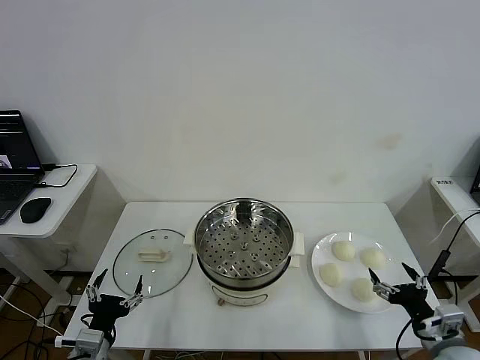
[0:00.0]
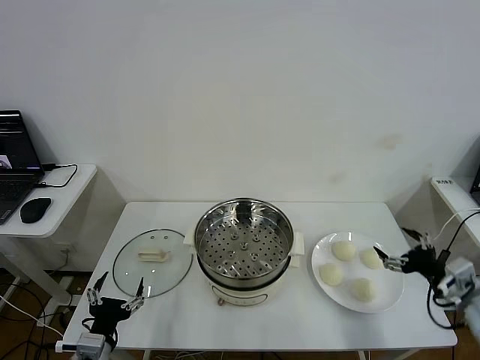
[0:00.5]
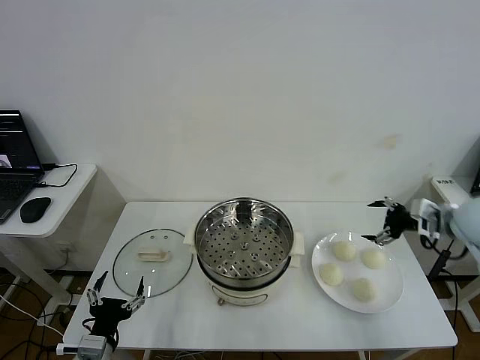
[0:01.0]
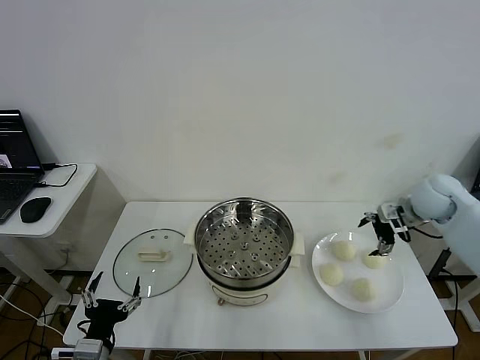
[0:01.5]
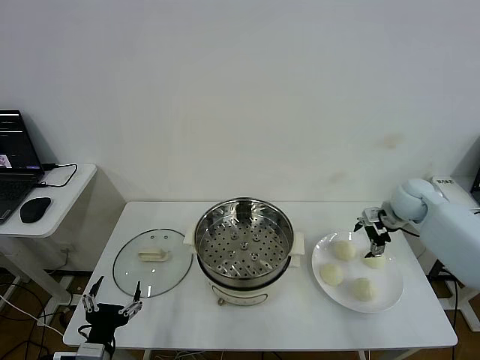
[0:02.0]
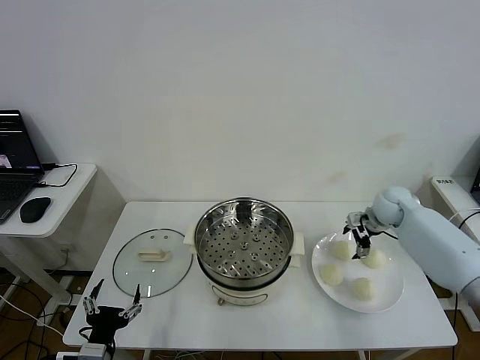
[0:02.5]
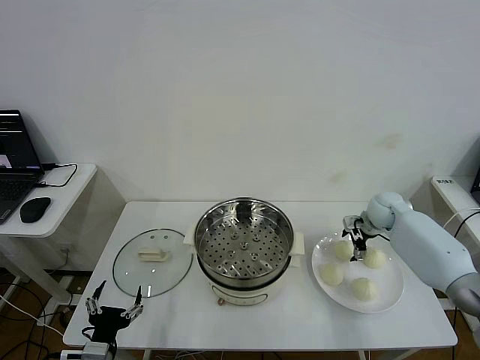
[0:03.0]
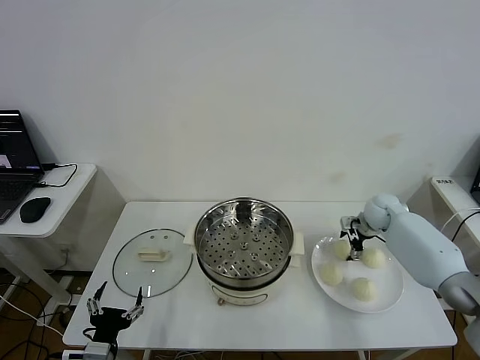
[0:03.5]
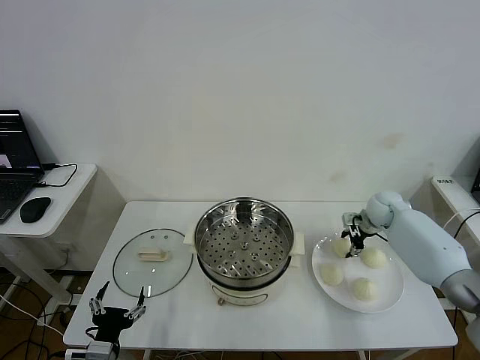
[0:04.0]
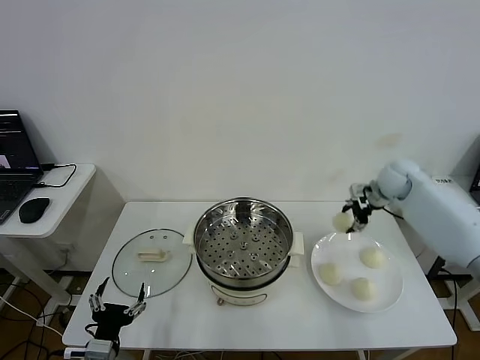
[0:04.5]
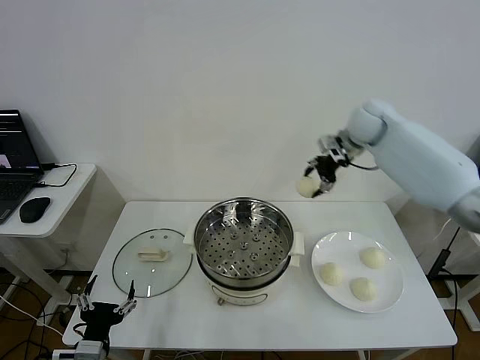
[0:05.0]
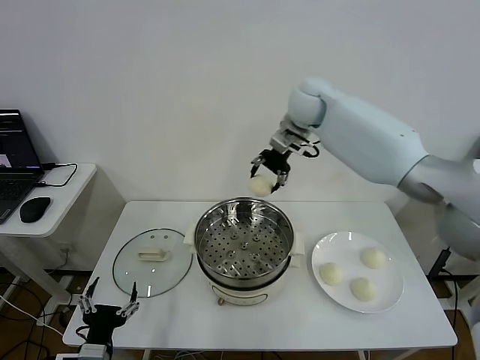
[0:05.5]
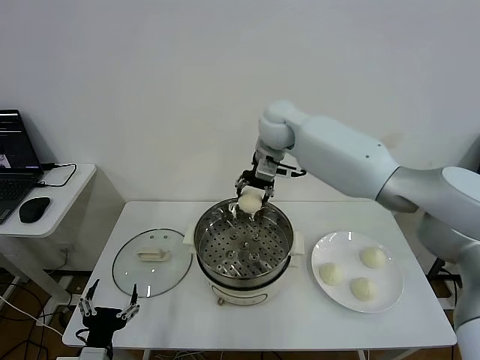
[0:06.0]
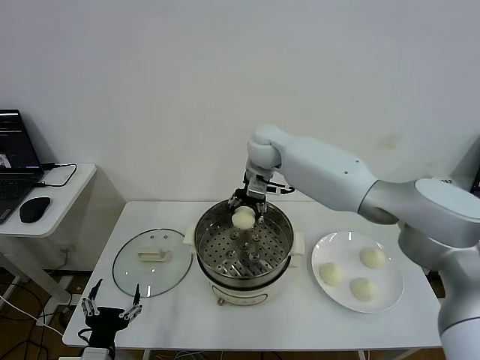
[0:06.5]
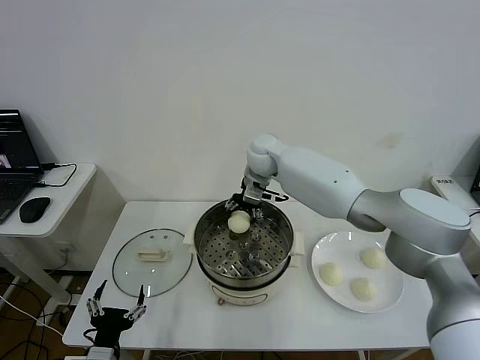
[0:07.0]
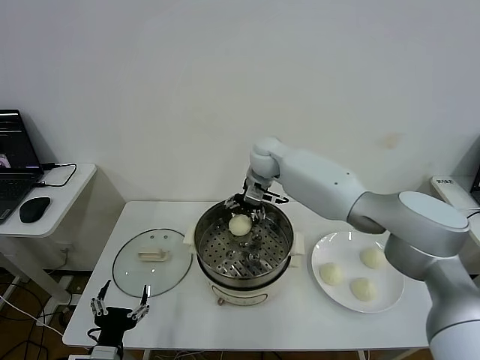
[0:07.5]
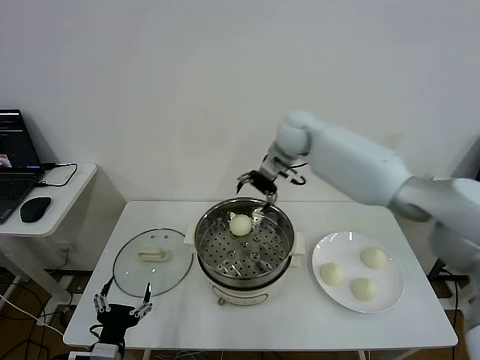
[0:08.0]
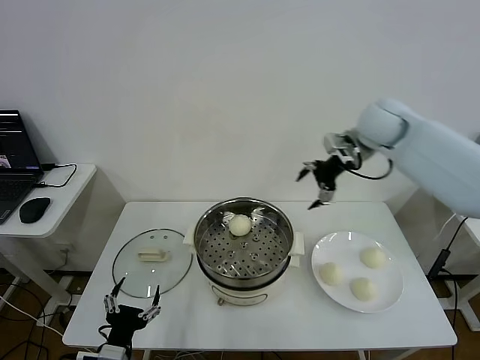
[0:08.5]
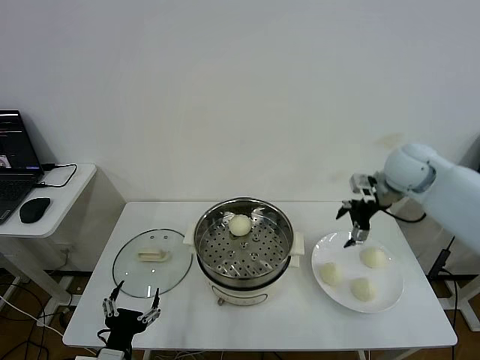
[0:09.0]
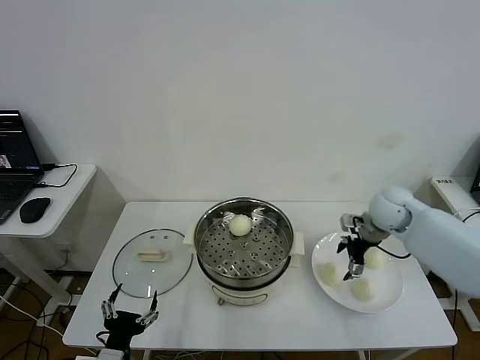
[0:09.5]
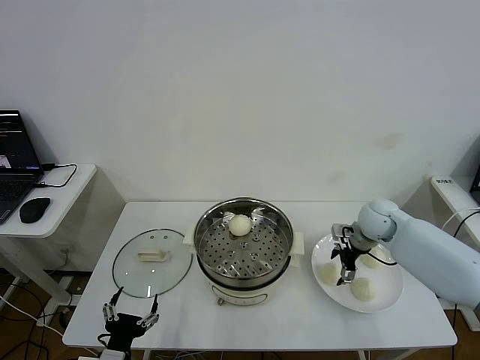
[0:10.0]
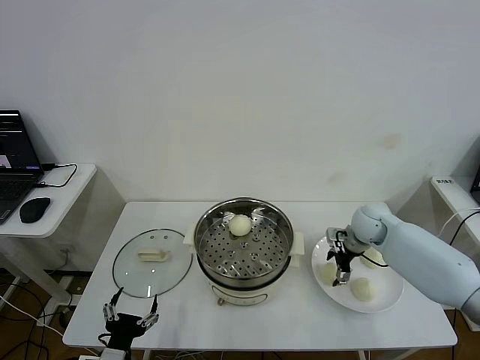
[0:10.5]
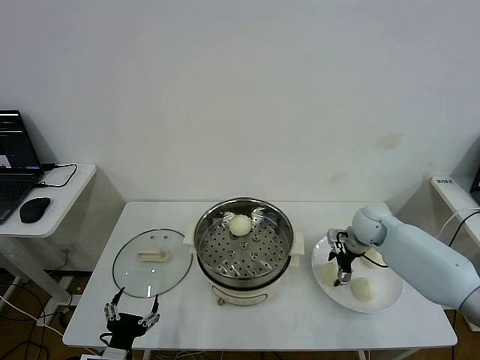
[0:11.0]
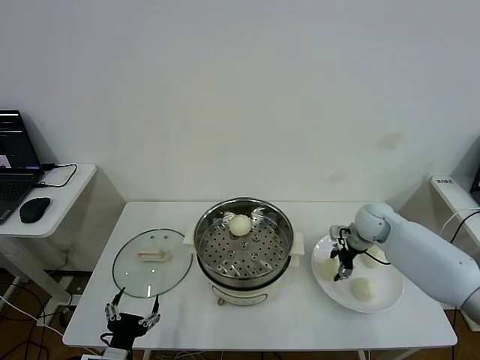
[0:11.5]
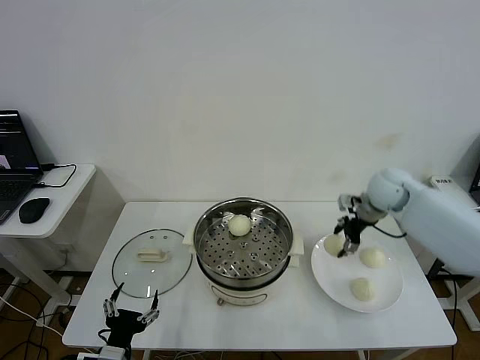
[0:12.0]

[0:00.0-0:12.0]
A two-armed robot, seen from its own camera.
Step, 0:00.0 to 0:03.5: Grasp the baozi in the plate with right gripper.
Step, 0:04.0 to 0:07.0: Place the baozi on the steamer with right gripper.
Step, 0:07.5 to 0:11.0: Grasp the baozi in the plate with right gripper.
0:02.0 to 0:04.0: The right gripper moves downward, some 5 cm, and closes up.
0:04.0 to 0:06.0: The right gripper is displaced to the left and upward by about 40 cm.
0:06.0 to 0:08.0: The right gripper is displaced to the right by roughly 10 cm, and opens.
0:08.0 to 0:10.0: The right gripper heads downward, to the right and backward, covering approximately 30 cm.
0:10.0 to 0:12.0: The right gripper is displaced upward by roughly 10 cm, and closes its fingers.

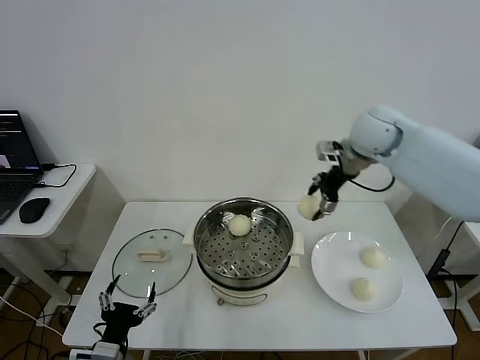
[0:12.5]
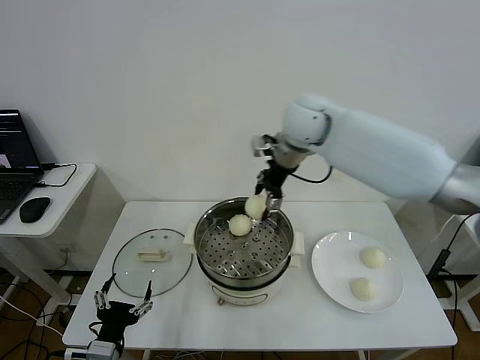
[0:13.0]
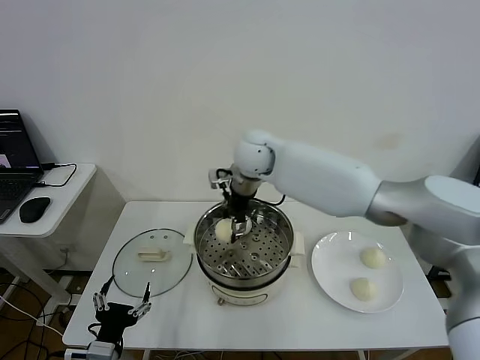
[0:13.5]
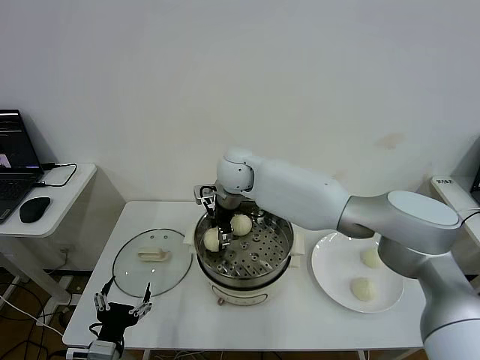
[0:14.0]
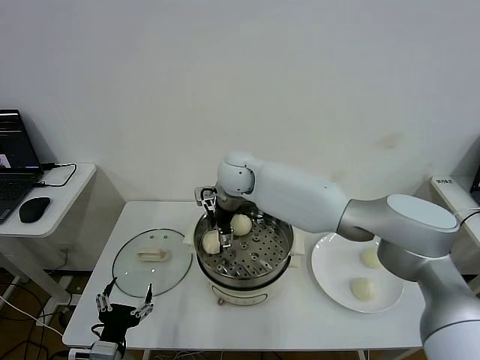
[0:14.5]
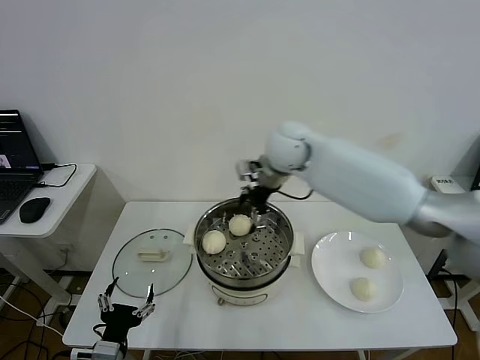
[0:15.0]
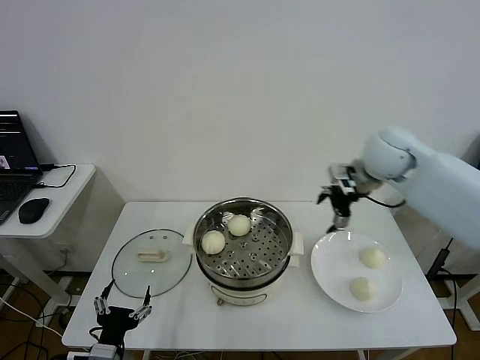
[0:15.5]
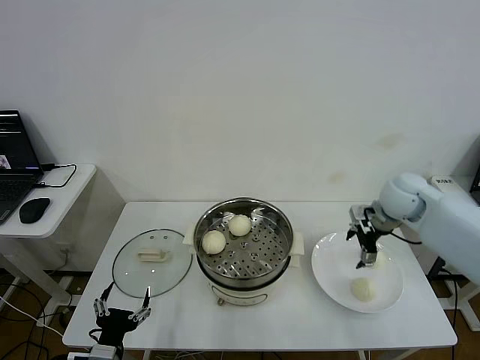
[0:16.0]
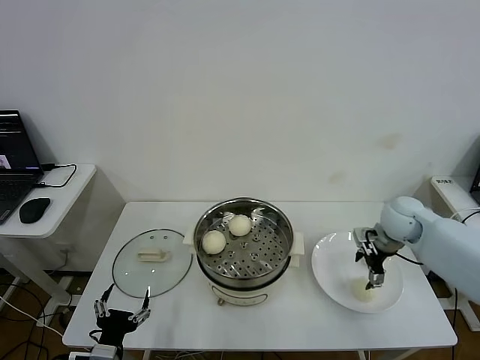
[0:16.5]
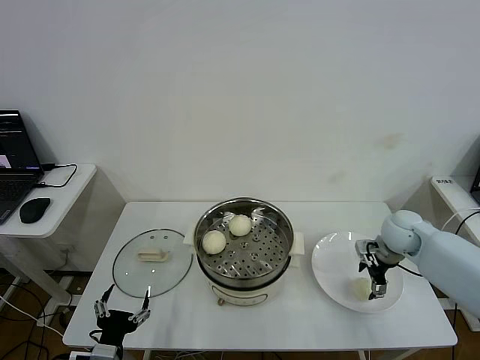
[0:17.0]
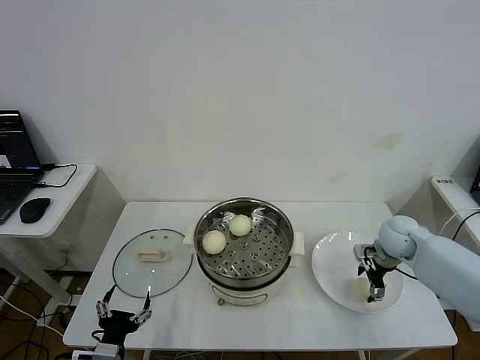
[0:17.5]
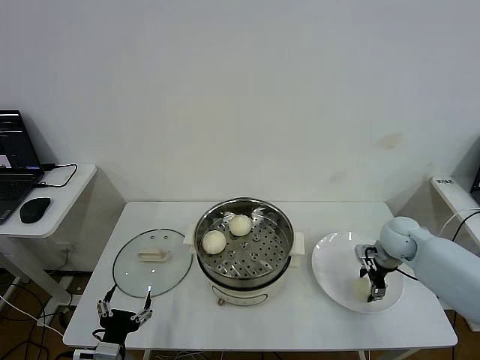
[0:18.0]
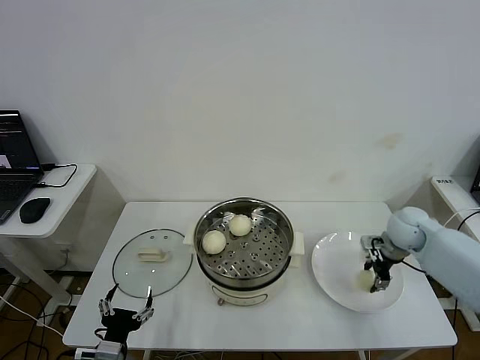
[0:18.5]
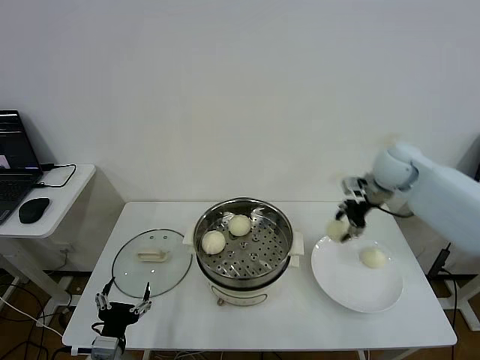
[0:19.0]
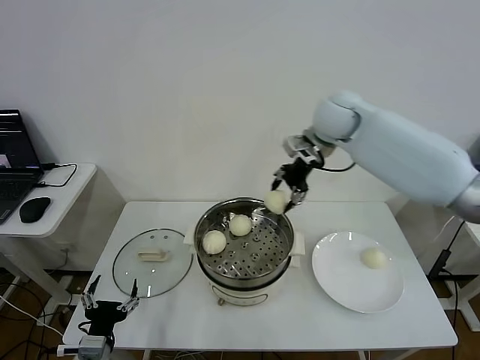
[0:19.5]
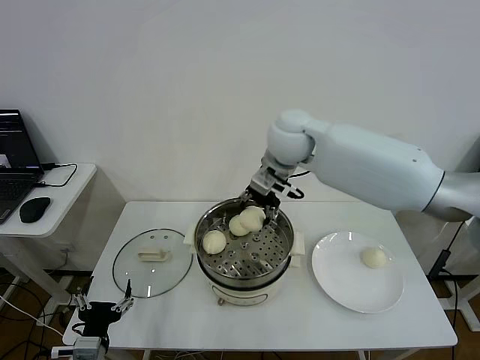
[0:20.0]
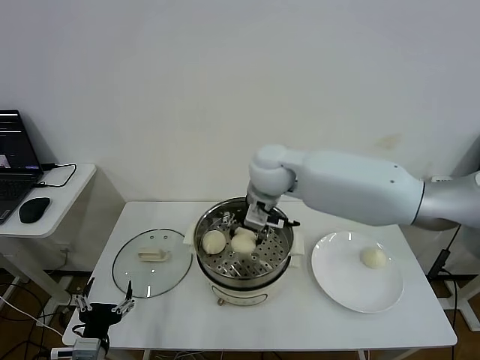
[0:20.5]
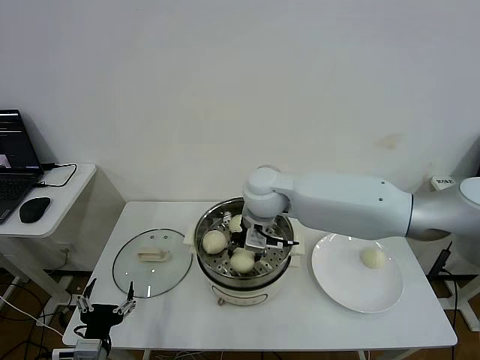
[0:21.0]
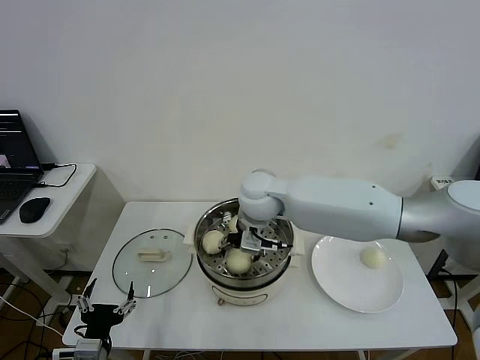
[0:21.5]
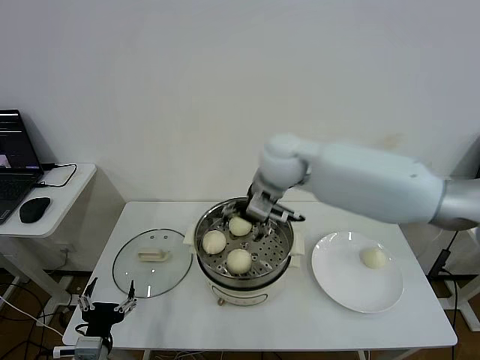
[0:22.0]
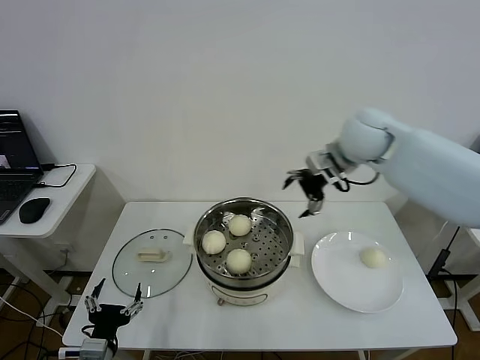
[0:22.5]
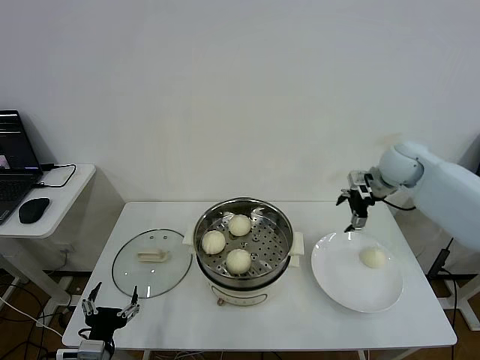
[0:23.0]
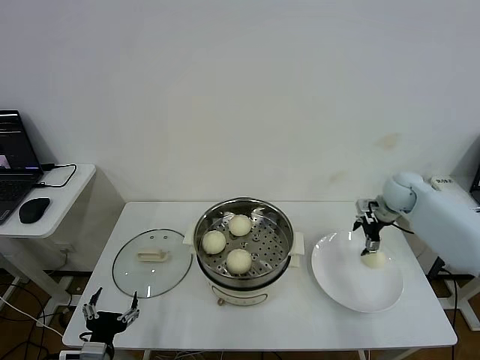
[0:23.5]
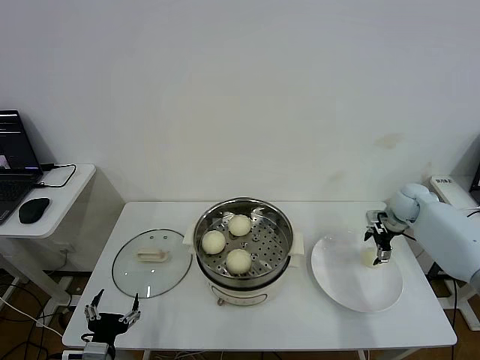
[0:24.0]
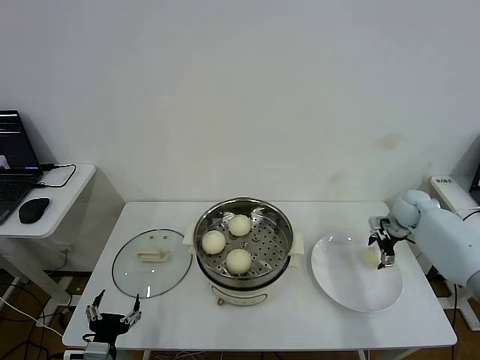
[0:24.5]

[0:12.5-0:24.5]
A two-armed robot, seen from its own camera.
Step, 0:12.5 to 0:14.0: Place the baozi on the steamer with right gripper.
Step, 0:14.5 to 0:18.0: Grasp the baozi in the plate with right gripper.
Step, 0:18.5 to 0:21.5: Place the baozi on the steamer with right gripper.
0:12.5 to 0:14.5: The right gripper heads to the left and downward, covering roughly 30 cm, and opens its fingers.
0:14.5 to 0:16.5: The right gripper travels to the right by about 40 cm.
0:16.5 to 0:18.5: The right gripper closes its fingers.
0:18.5 to 0:20.5: The right gripper heads to the left and upward, covering roughly 35 cm.
0:20.5 to 0:22.5: The right gripper goes roughly 20 cm to the right, and opens its fingers.
0:22.5 to 0:24.5: The right gripper travels downward and to the right by roughly 30 cm.

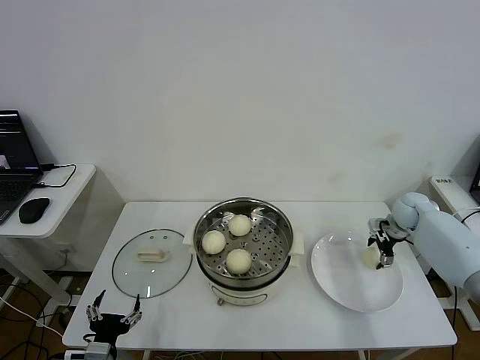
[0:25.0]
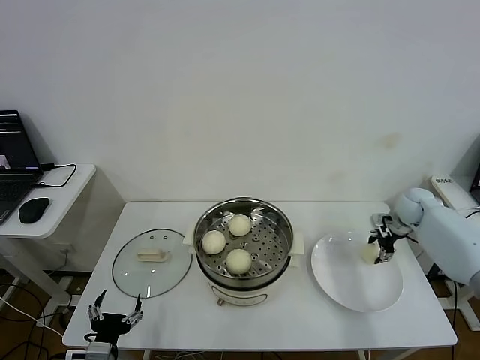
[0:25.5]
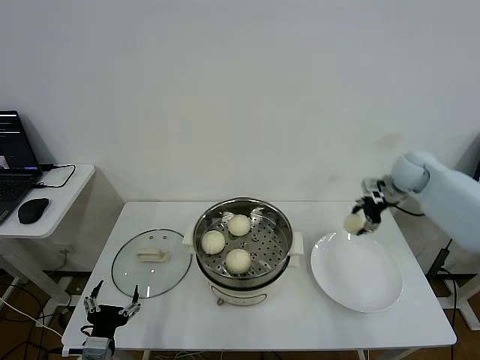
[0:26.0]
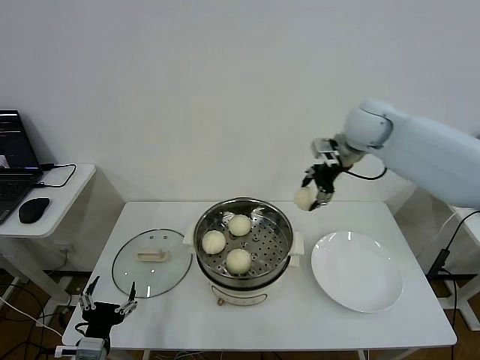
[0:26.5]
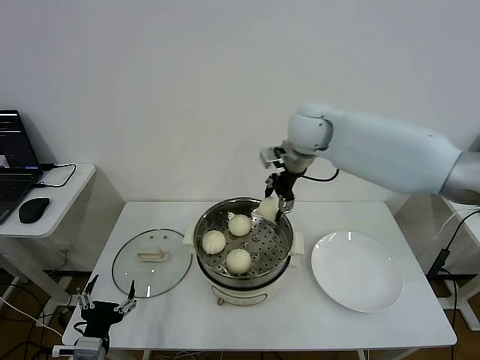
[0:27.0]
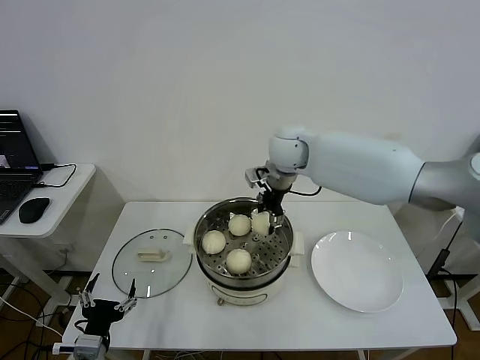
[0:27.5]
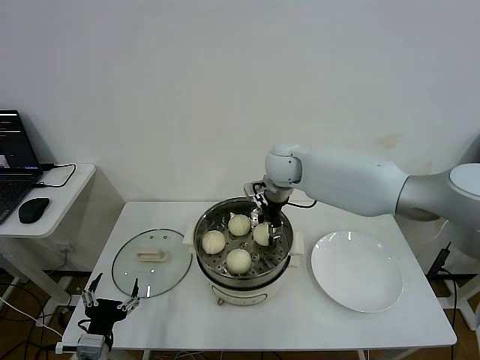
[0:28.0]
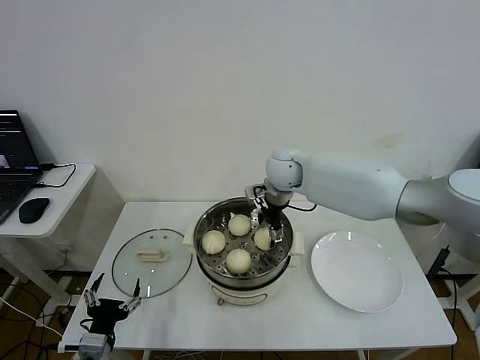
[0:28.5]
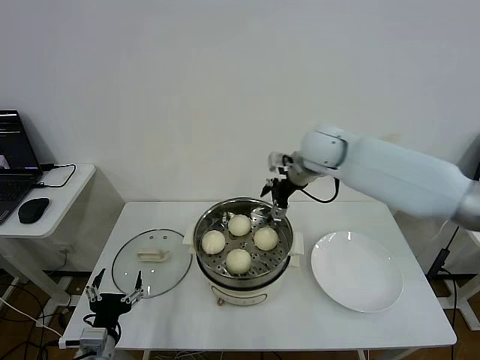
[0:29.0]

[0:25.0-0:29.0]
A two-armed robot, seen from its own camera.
Step, 0:25.5 to 0:28.5: Place the baozi on the steamer with right gripper.
0:25.0 to 0:27.0: The right gripper moves to the left and upward, approximately 40 cm, and closes.
0:27.0 to 0:29.0: The right gripper opens its fingers.
